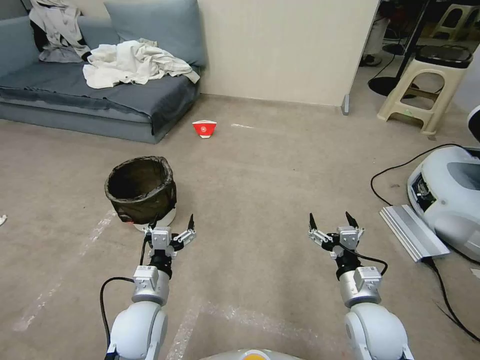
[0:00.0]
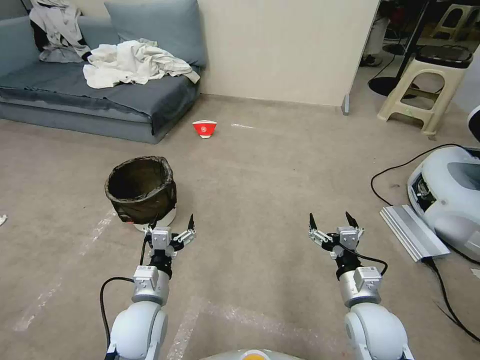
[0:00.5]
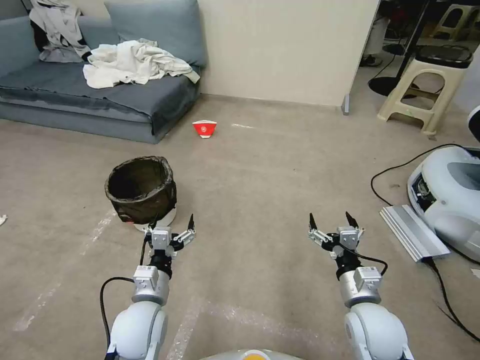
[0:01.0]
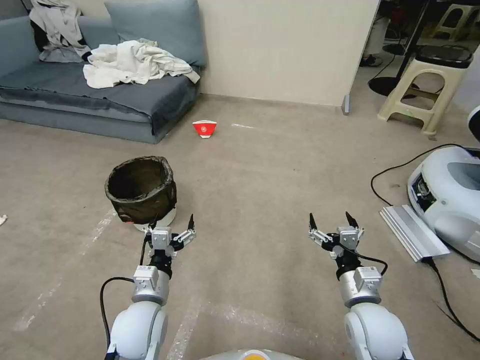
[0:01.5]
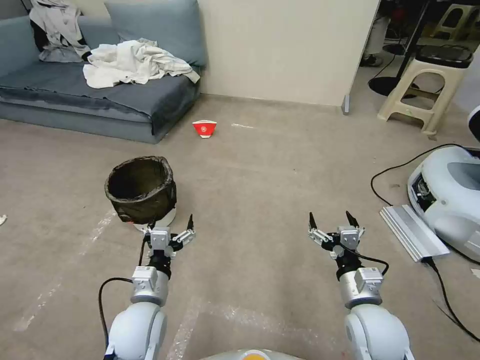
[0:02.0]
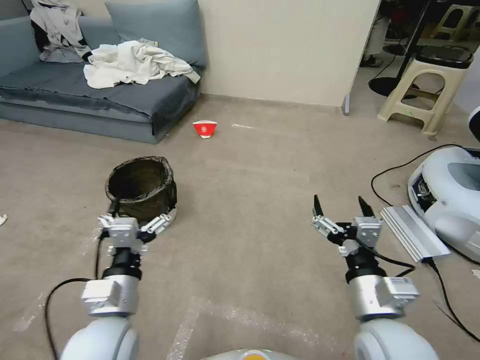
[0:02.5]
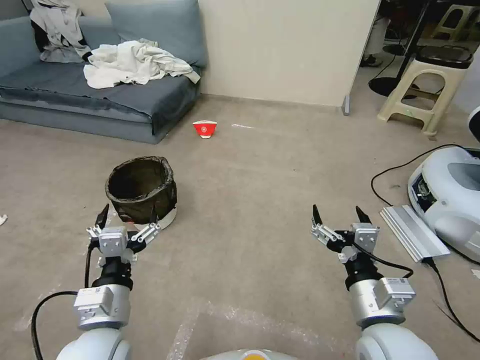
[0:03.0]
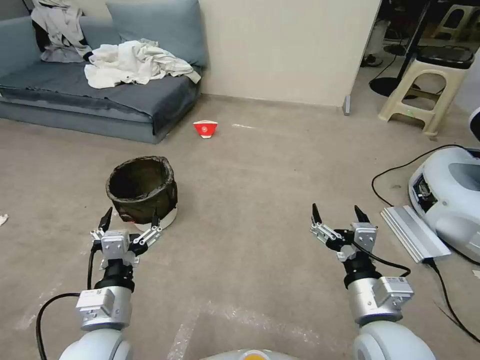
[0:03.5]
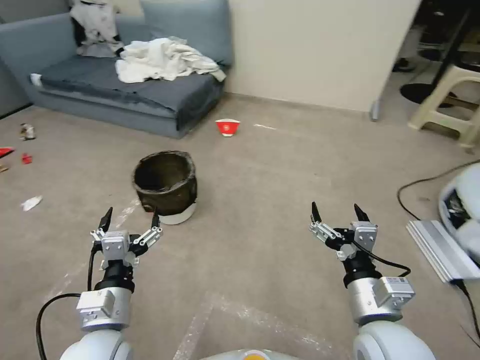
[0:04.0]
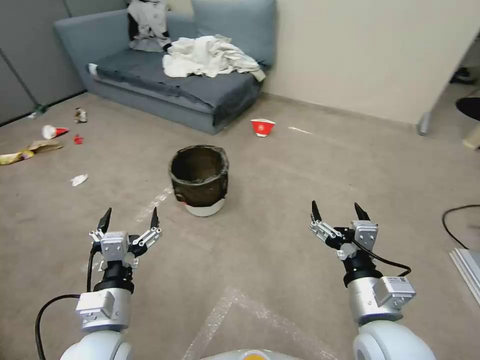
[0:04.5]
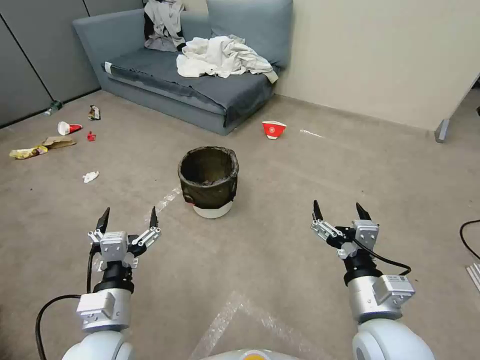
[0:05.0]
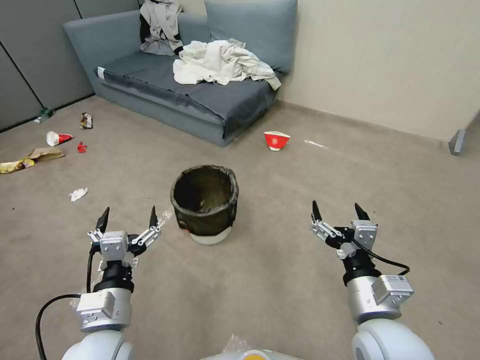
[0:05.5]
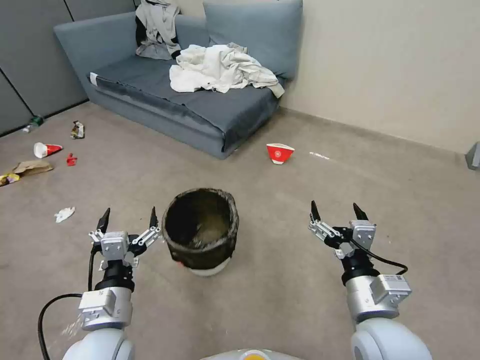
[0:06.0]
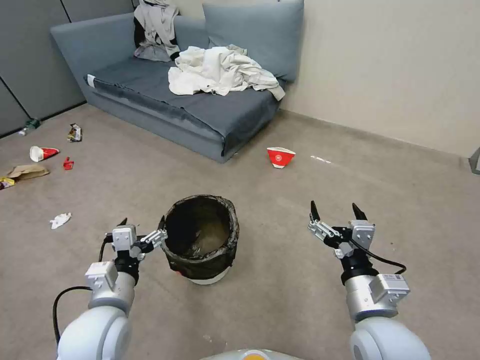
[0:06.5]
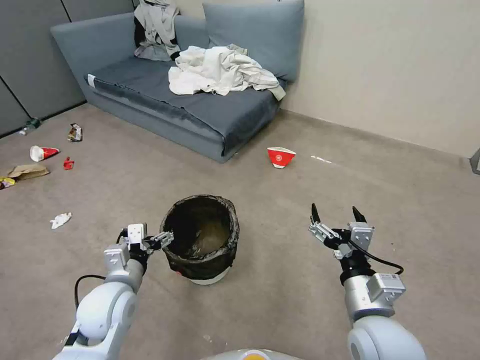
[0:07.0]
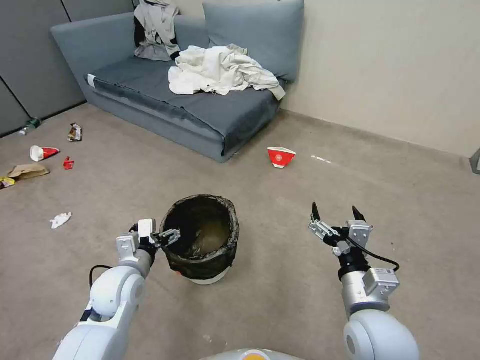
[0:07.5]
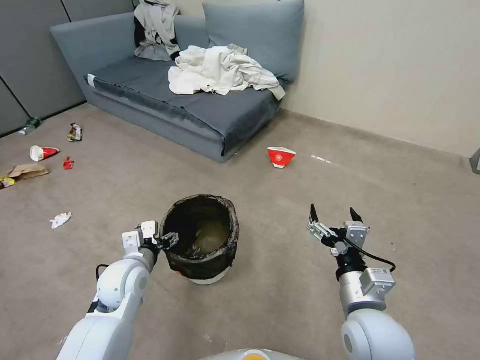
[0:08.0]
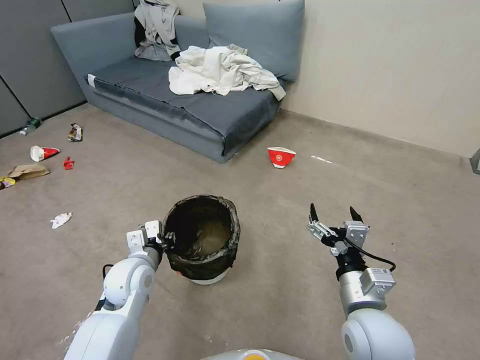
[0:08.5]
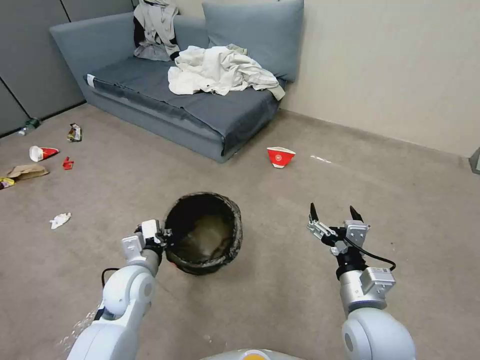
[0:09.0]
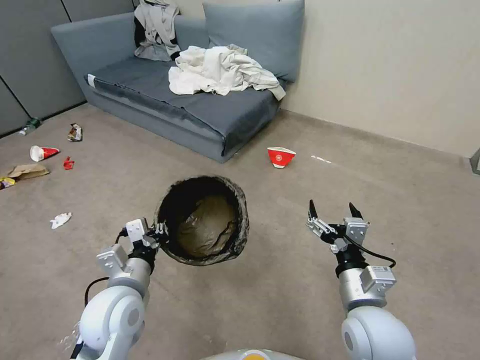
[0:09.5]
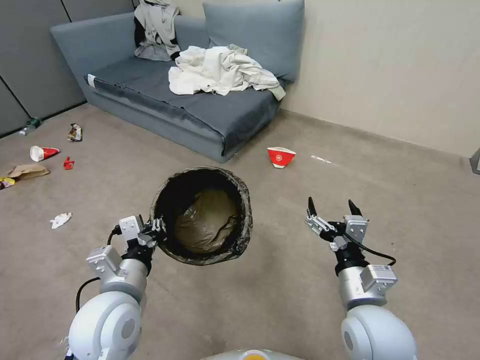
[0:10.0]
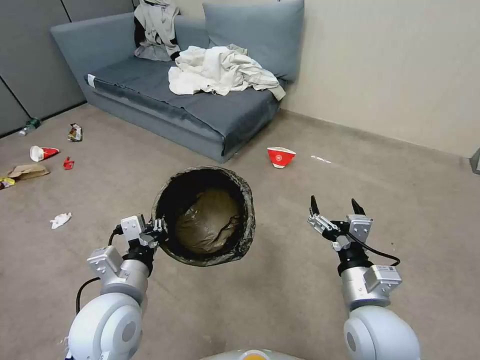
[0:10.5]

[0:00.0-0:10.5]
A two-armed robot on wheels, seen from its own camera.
Task of the whole recording: Pick up the trash can from the floor.
0:02.0 to 0:04.0: The left gripper is displaced upward and backward by approximately 10 cm. Meanwhile the right gripper travels upward by approximately 10 cm.
0:06.5 to 0:08.5: The left gripper travels forward by about 15 cm, and closes.
0:08.5 to 0:10.5: The left gripper moves backward and upward, roughly 15 cm.

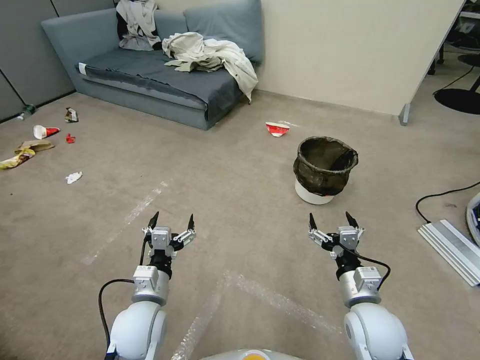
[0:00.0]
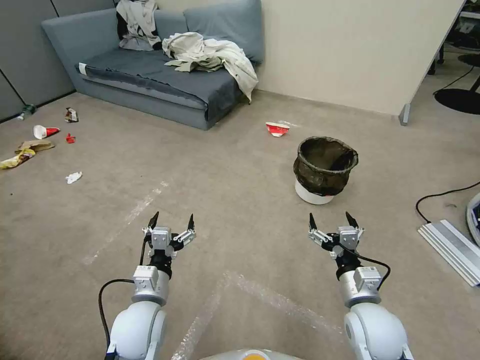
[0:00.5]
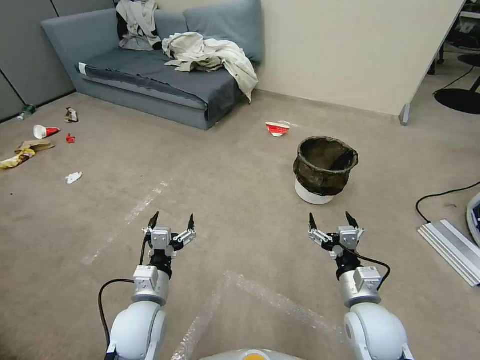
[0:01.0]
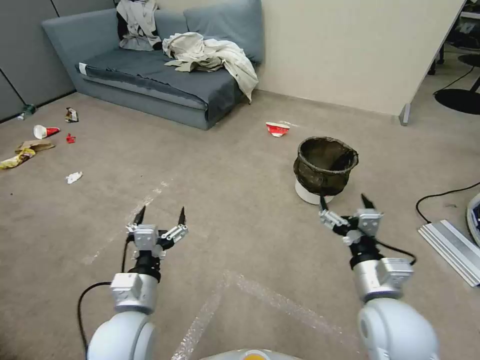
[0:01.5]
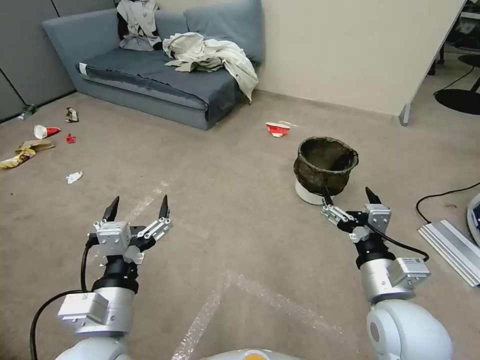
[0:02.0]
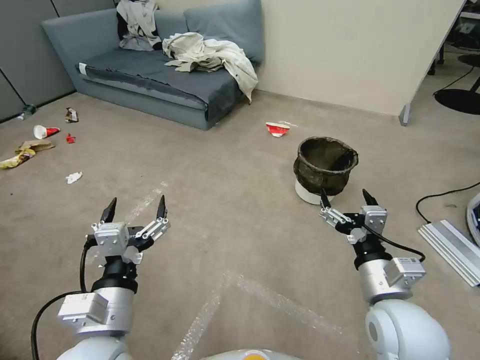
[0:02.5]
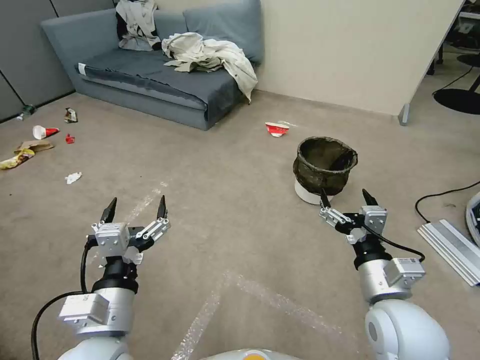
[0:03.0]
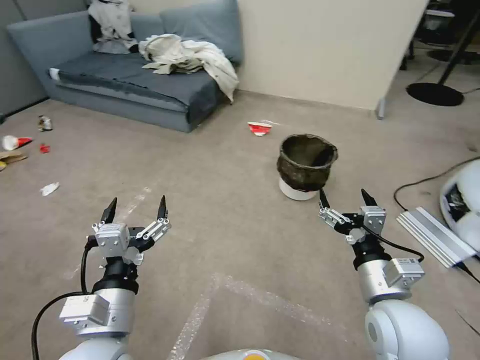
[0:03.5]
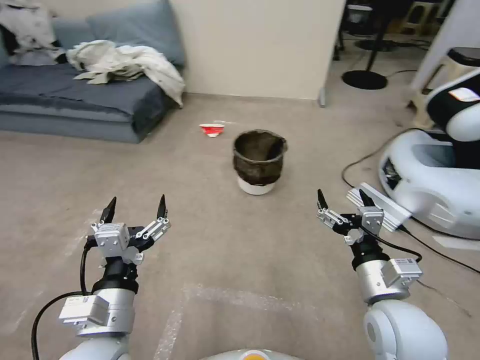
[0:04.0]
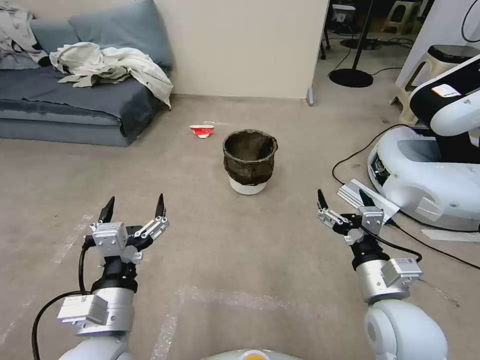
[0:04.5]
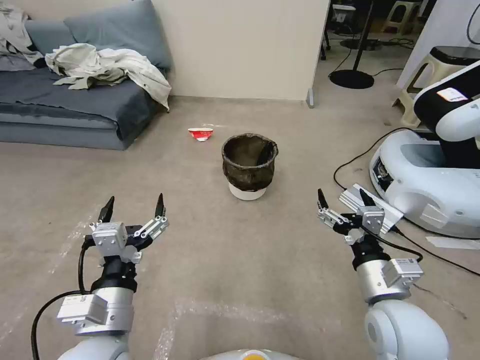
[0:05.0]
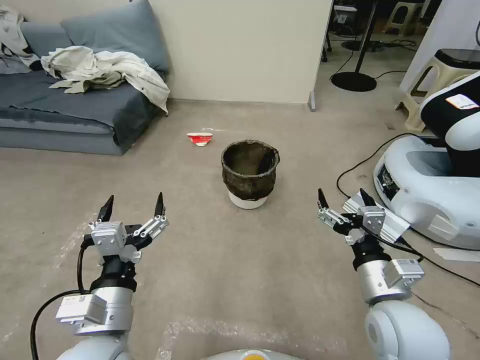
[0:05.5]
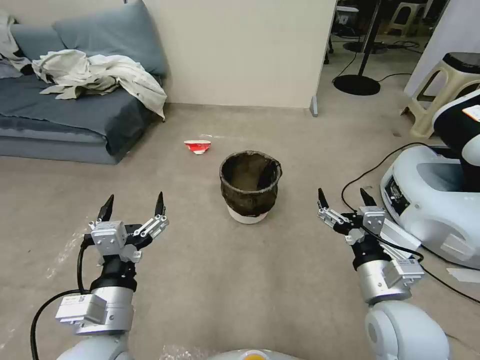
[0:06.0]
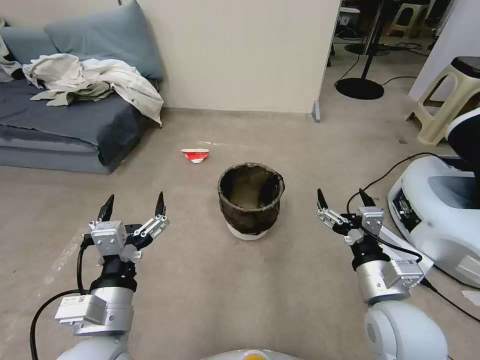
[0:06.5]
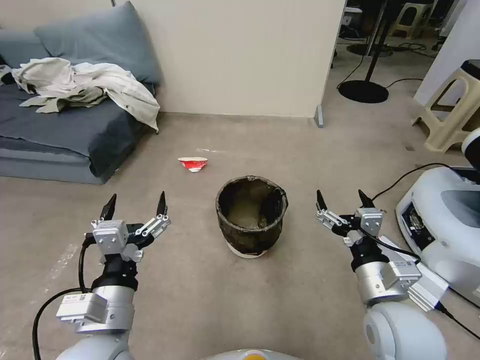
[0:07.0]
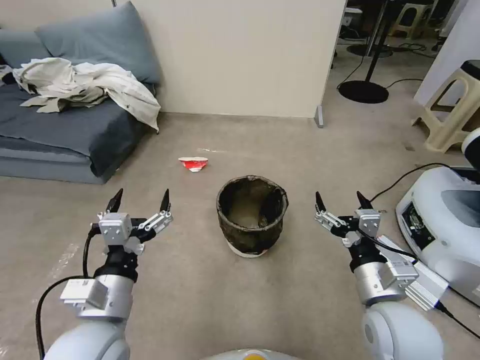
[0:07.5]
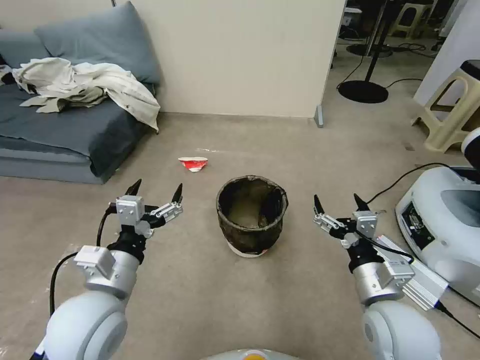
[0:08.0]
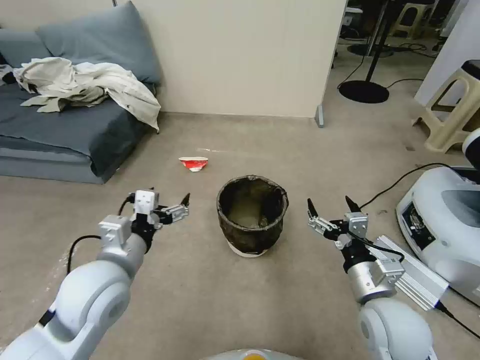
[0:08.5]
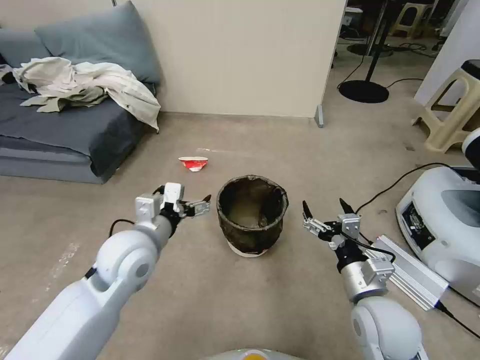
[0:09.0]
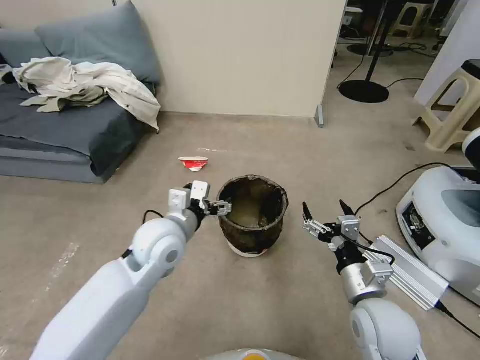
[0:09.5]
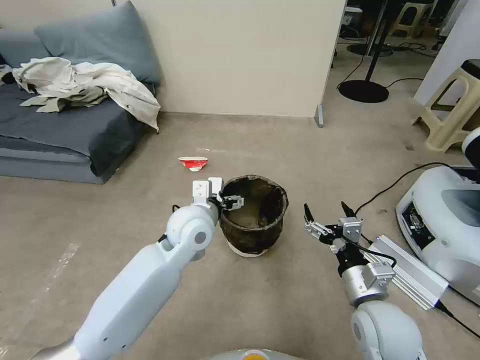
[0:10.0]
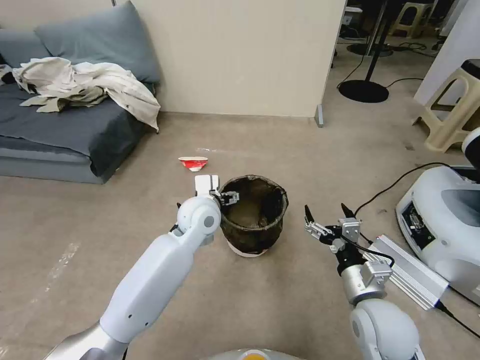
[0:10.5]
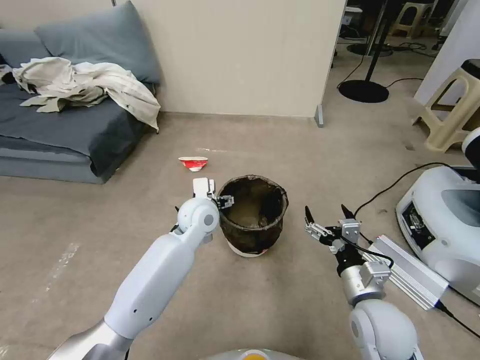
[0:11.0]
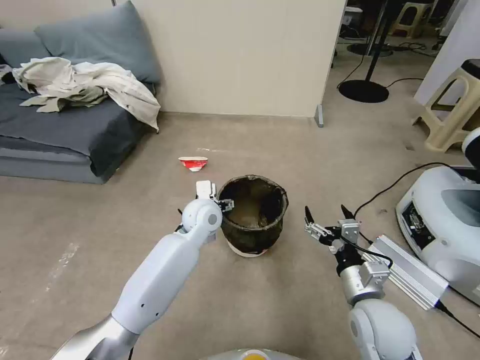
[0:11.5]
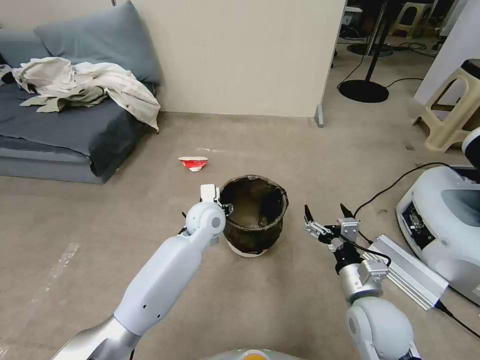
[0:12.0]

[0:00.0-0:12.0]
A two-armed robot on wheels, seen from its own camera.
Task of the whole recording: Pick up the trash can from the floor.
0:06.0 to 0:08.0: The left gripper is displaced forward by about 5 cm.
0:08.0 to 0:10.0: The left gripper travels forward and to the right by approximately 20 cm.
0:10.0 to 0:12.0: The left gripper shifts some 10 cm downward and forward, and closes.

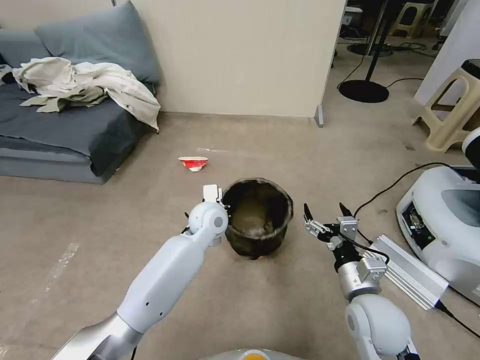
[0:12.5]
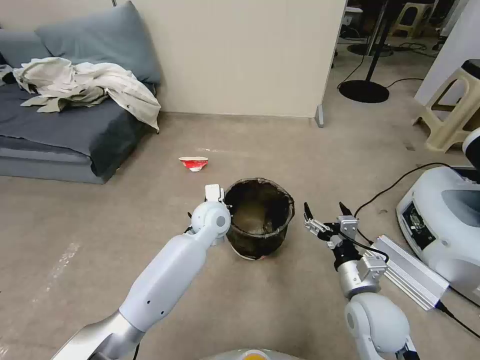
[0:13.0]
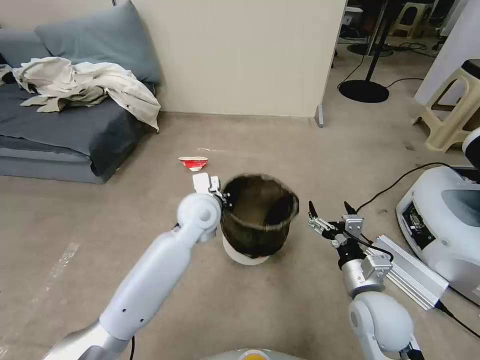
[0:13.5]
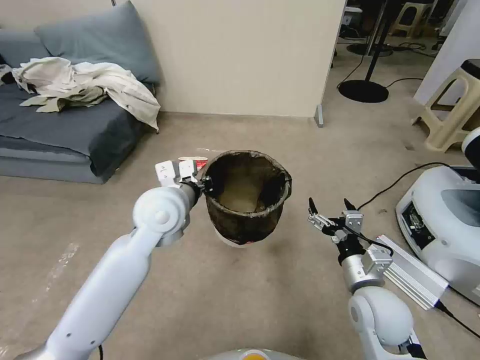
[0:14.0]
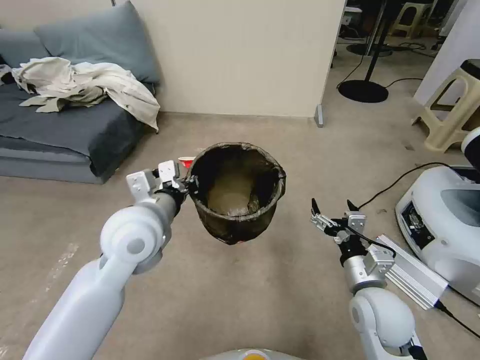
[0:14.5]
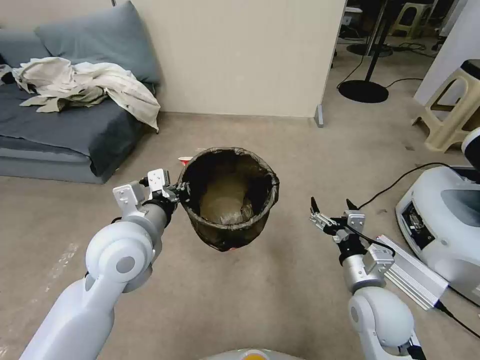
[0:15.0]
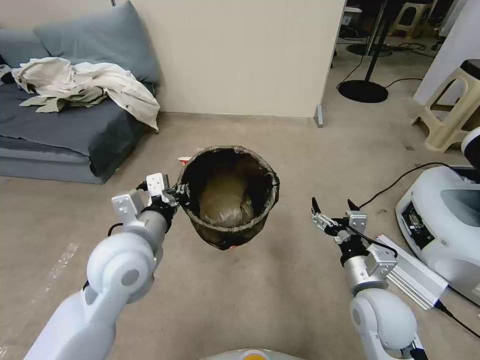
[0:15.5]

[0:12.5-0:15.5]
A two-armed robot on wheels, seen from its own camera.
Task of the whole recording: Pick up the trash can from the floor.
0:12.5 to 0:14.0: The left gripper shifts about 15 cm upward, to the left and backward.
0:14.0 to 0:15.5: The left gripper travels backward by some 10 cm.
